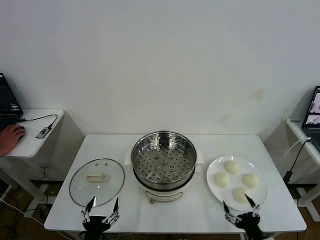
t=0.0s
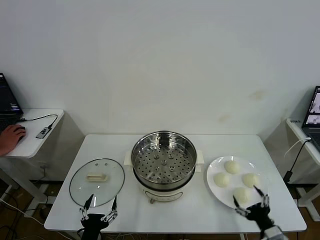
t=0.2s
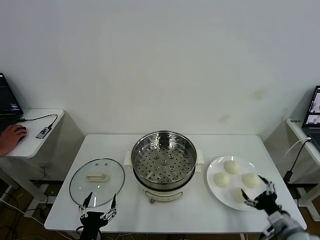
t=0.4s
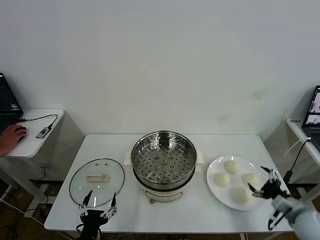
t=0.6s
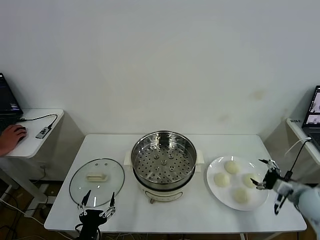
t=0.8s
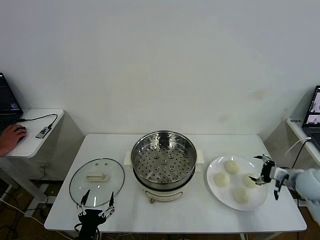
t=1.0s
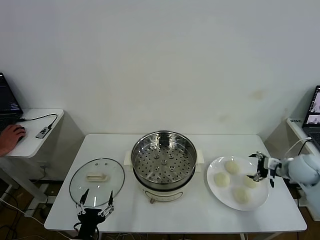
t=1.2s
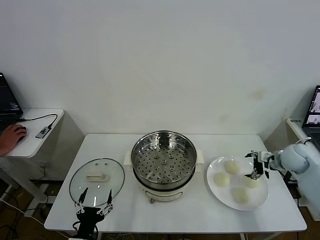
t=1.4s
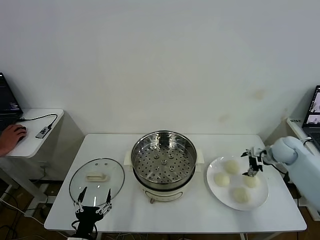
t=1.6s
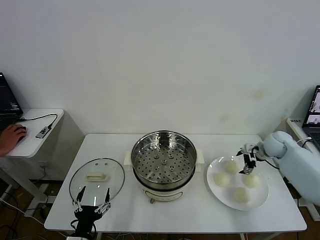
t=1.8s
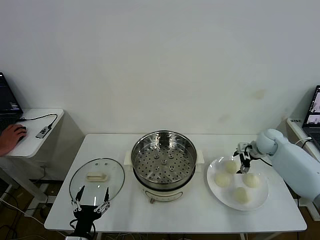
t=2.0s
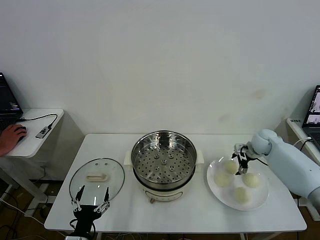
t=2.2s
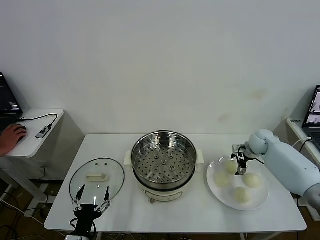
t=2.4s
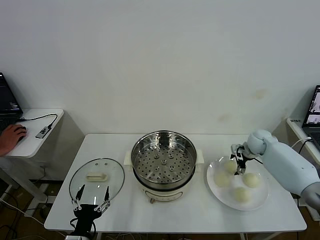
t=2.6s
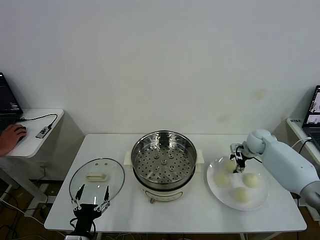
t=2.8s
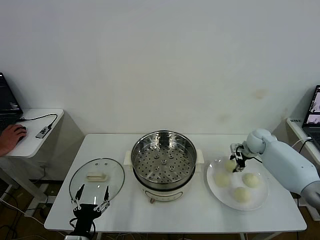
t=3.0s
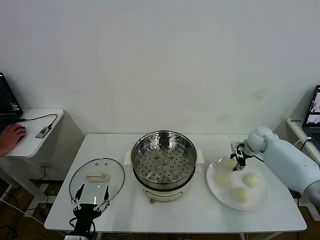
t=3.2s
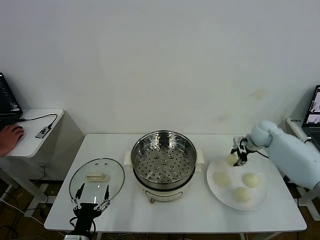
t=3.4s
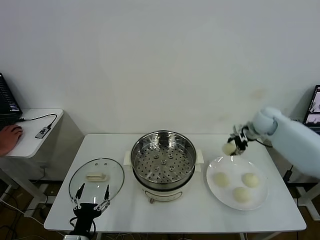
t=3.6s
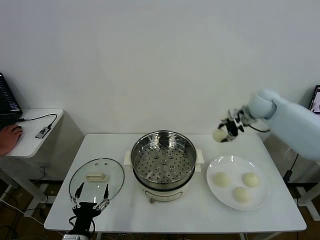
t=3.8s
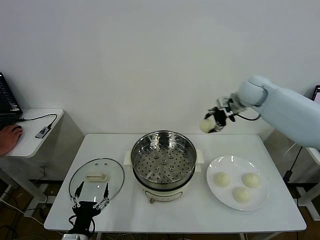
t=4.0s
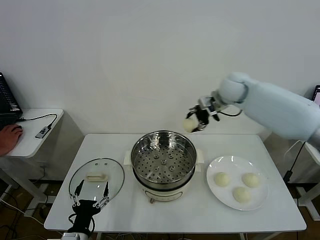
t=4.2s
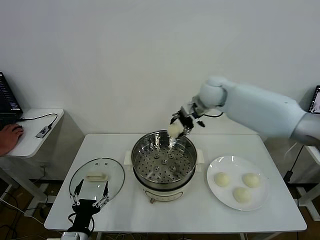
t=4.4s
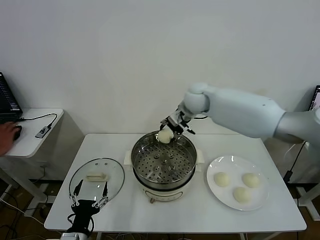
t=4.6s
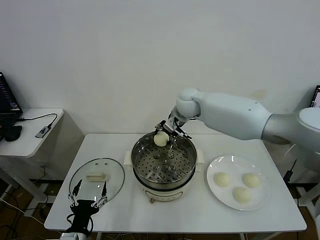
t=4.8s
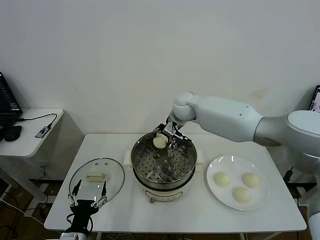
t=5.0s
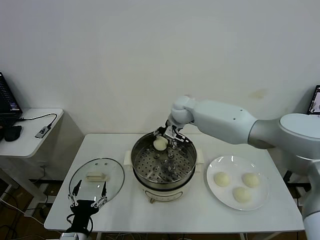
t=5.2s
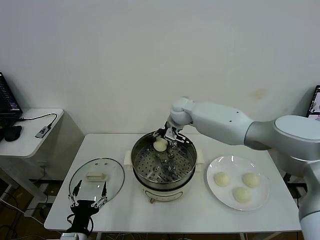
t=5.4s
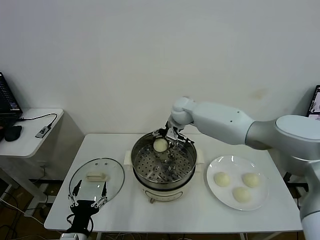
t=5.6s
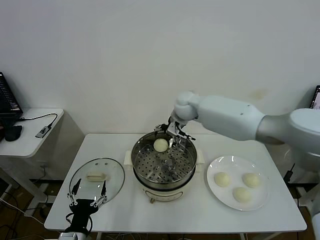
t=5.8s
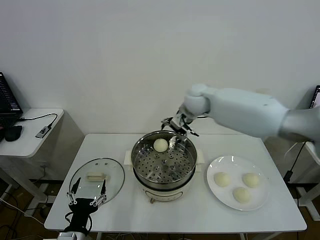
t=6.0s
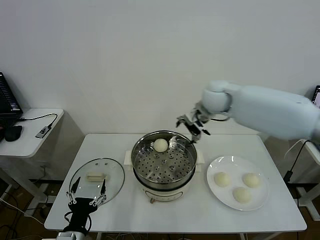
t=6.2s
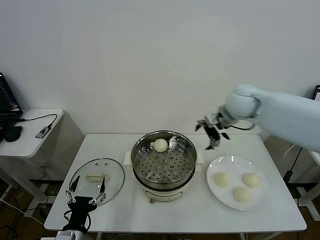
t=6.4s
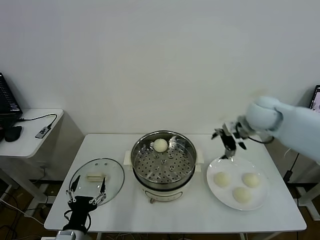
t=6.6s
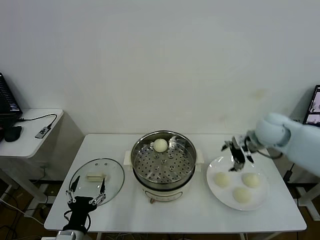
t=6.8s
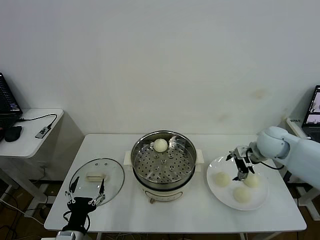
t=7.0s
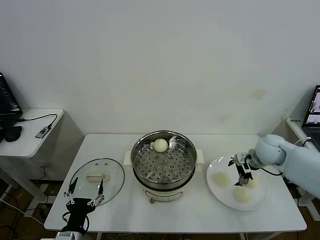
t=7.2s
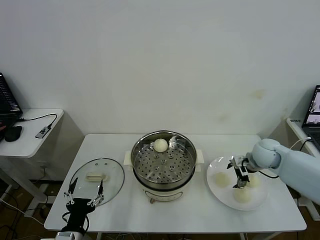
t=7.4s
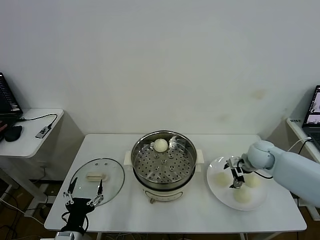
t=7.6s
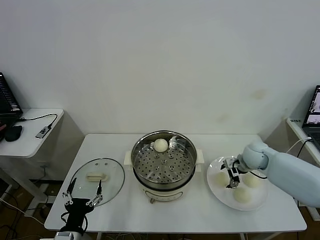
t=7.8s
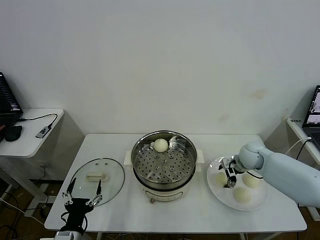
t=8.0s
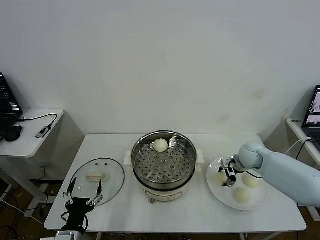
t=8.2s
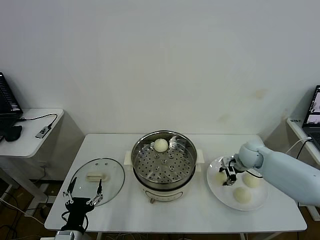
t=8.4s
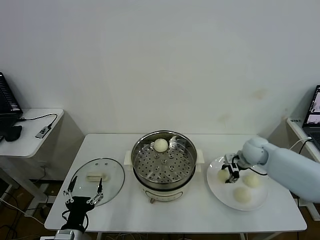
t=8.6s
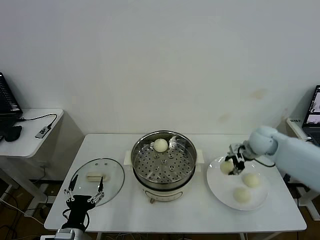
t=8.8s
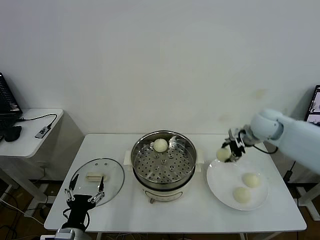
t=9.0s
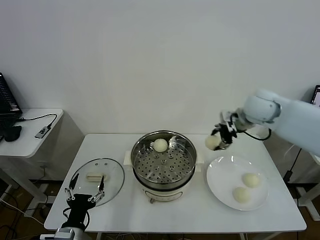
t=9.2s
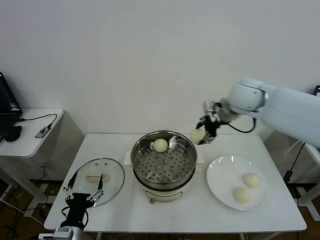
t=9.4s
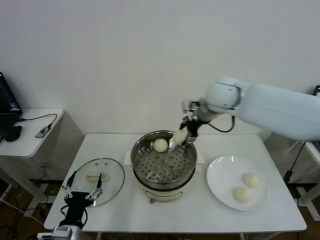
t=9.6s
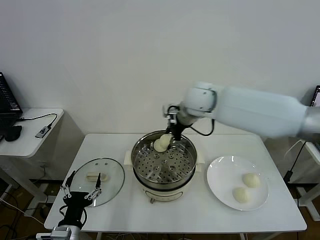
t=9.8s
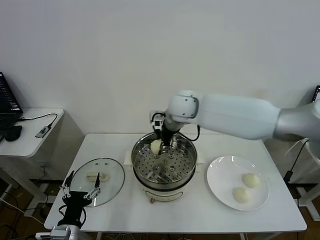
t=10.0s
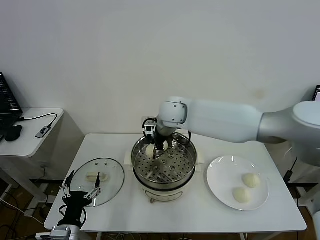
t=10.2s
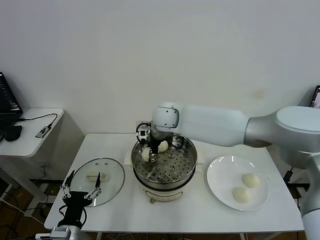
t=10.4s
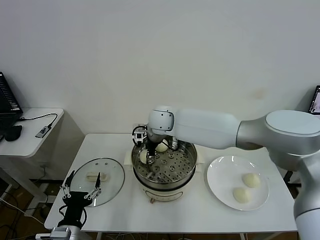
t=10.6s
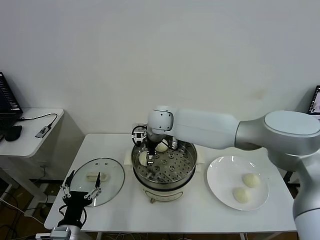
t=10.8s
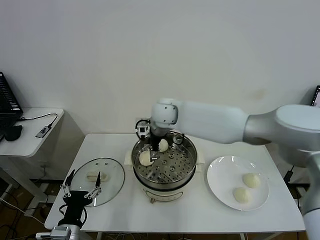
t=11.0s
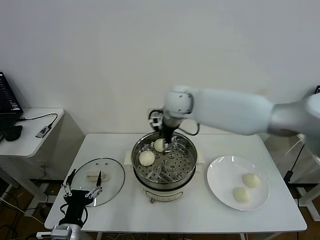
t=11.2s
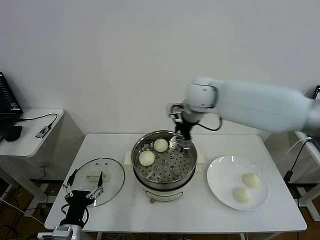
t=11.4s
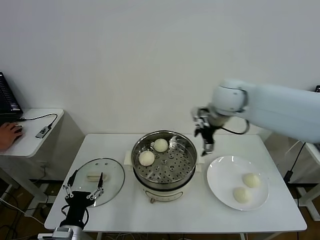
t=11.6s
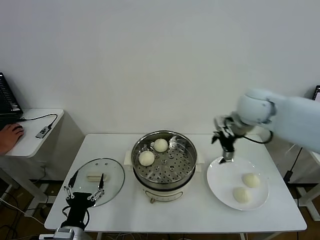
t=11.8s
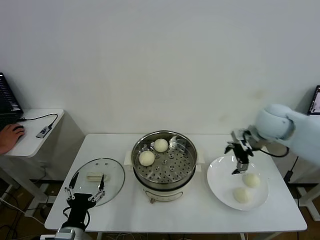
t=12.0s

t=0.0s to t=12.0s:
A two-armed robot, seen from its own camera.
Task of the whole recording: take steamed baozi put them in steamer then cover it.
Step, t=0.0s to t=3.0s: Grasp the baozi in the plate with right gripper.
Step, t=3.2s to t=5.6s: Place the baozi on the steamer with right gripper.
Step, t=5.8s to t=8.2s: Grasp the baozi in the plate with right gripper.
Step, t=8.6s to t=10.8s: Place the baozi on the steamer with right gripper.
t=1.6s to t=3.0s: The right gripper ends up roughly 5 cm from where it was, and closes up.
t=3.0s to t=4.4s: The right gripper travels to the left and upward by about 30 cm.
t=4.4s to t=6.0s: The right gripper moves some 10 cm downward and comes back, and opens up.
t=6.0s to t=7.6s: The right gripper heads to the right and downward, covering some 30 cm.
t=7.6s to t=9.0s: The right gripper is displaced upward by roughly 15 cm, and closes.
t=9.0s to t=10.4s: The right gripper shifts about 30 cm to the left.
t=10.4s to t=12.0s: The right gripper moves to the right, approximately 35 cm, and opens.

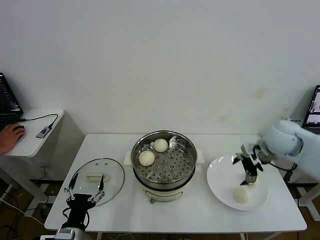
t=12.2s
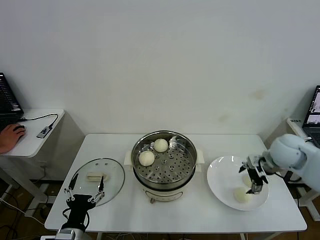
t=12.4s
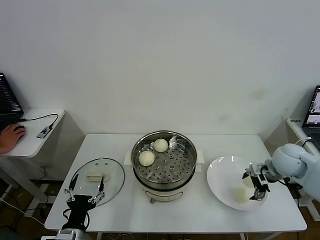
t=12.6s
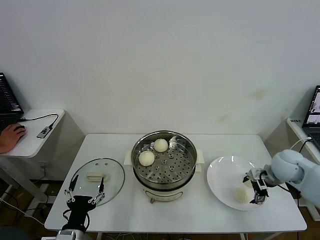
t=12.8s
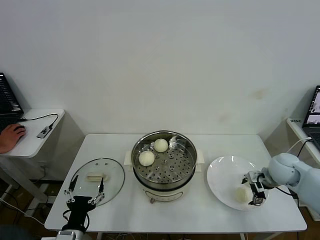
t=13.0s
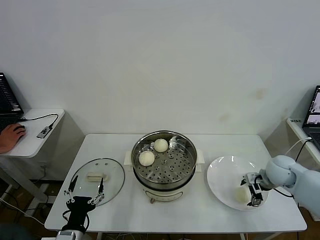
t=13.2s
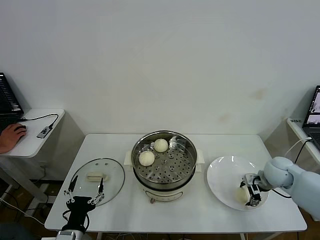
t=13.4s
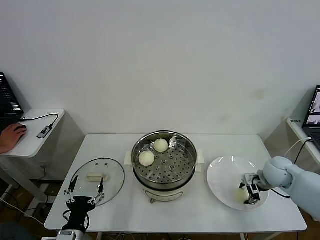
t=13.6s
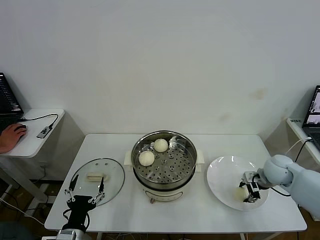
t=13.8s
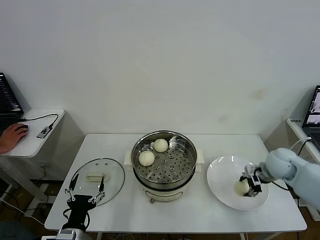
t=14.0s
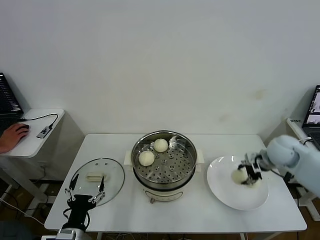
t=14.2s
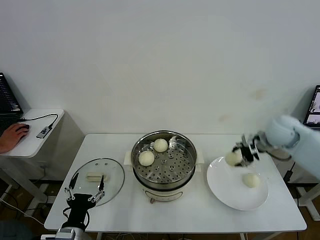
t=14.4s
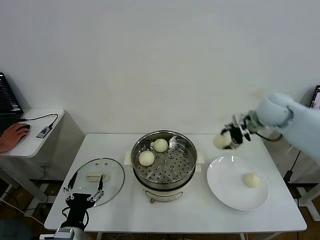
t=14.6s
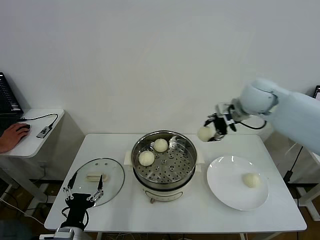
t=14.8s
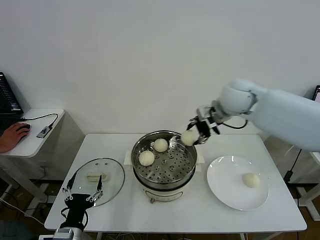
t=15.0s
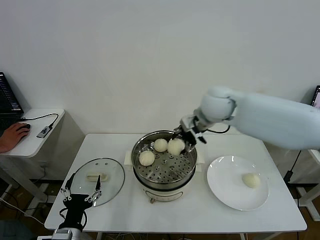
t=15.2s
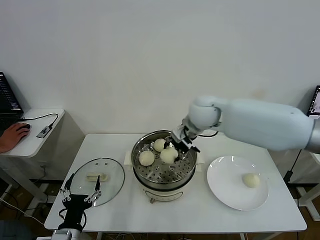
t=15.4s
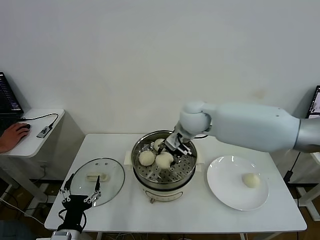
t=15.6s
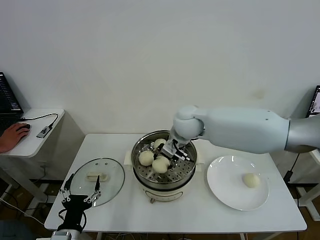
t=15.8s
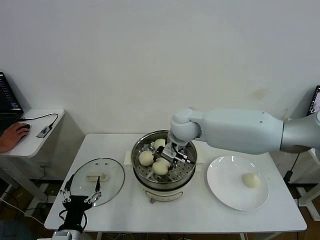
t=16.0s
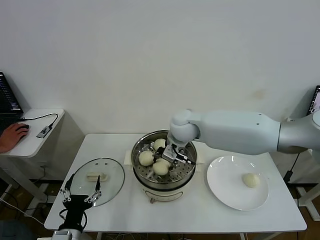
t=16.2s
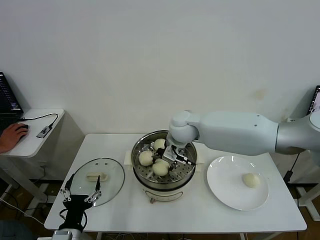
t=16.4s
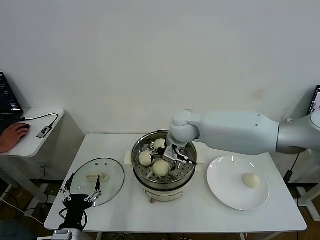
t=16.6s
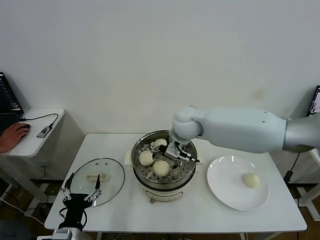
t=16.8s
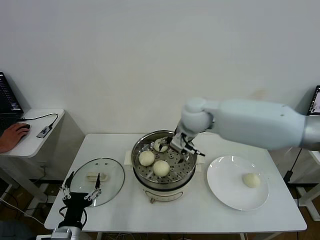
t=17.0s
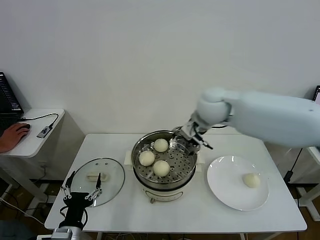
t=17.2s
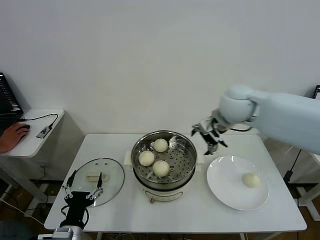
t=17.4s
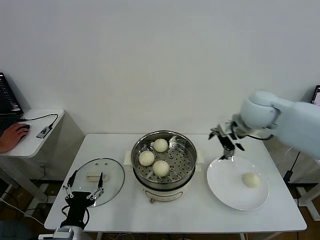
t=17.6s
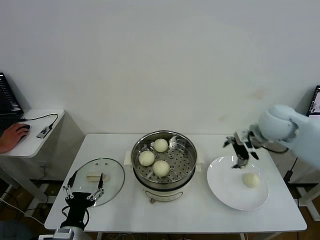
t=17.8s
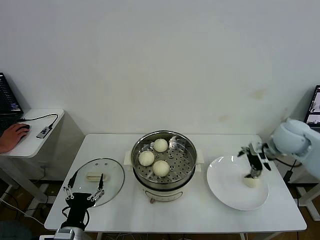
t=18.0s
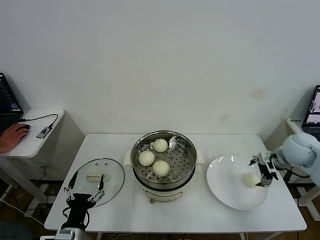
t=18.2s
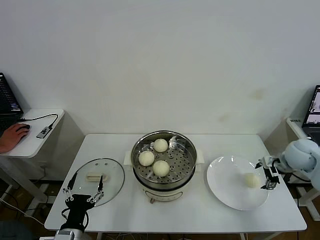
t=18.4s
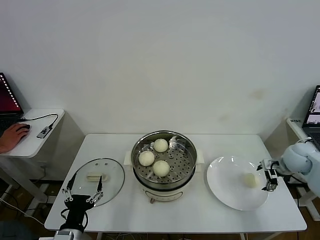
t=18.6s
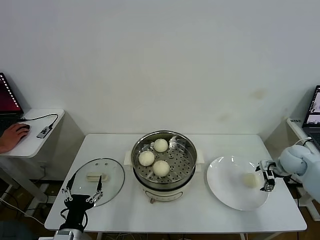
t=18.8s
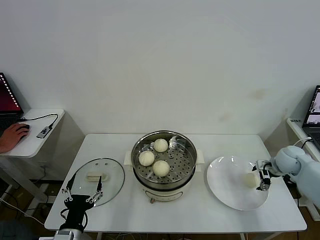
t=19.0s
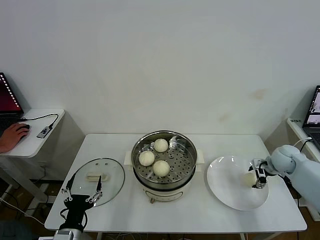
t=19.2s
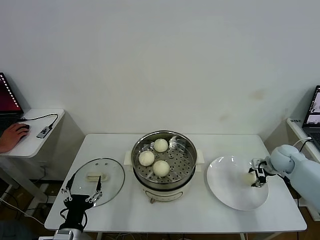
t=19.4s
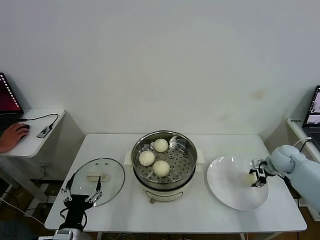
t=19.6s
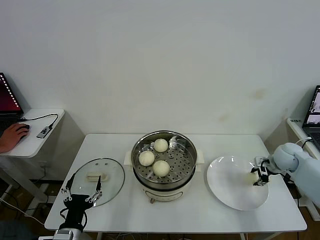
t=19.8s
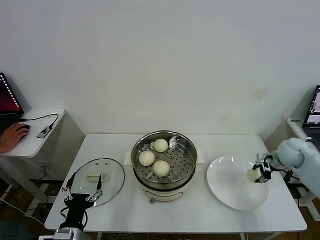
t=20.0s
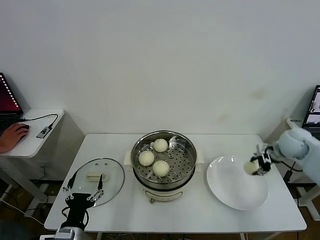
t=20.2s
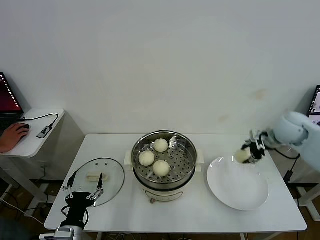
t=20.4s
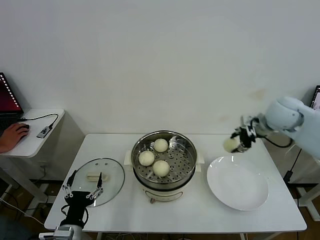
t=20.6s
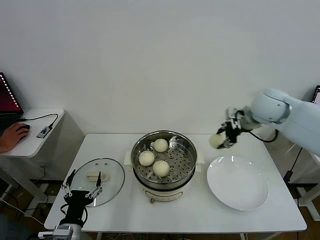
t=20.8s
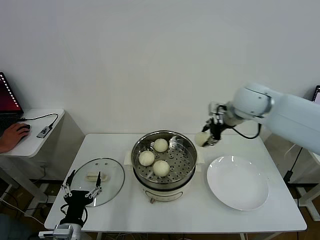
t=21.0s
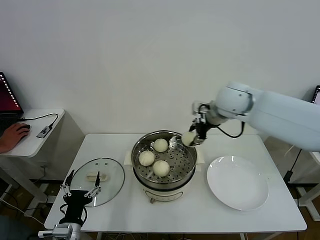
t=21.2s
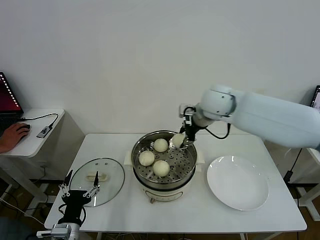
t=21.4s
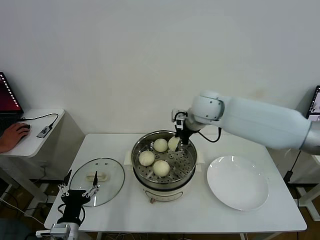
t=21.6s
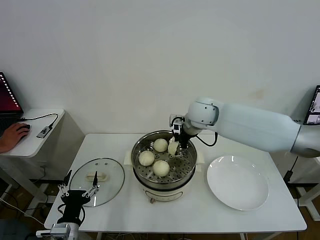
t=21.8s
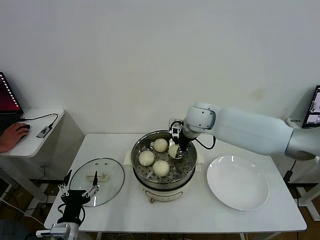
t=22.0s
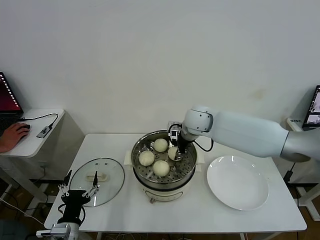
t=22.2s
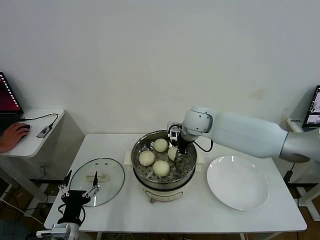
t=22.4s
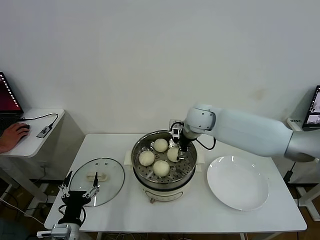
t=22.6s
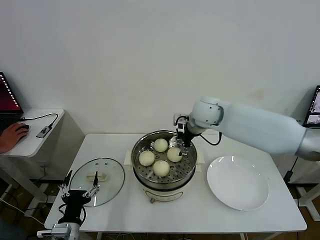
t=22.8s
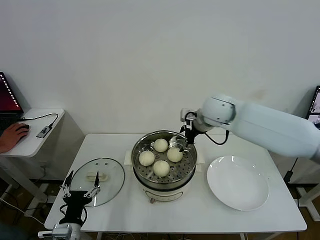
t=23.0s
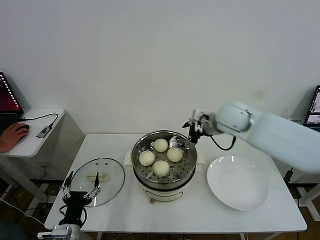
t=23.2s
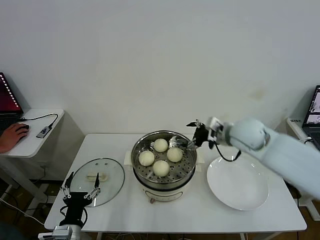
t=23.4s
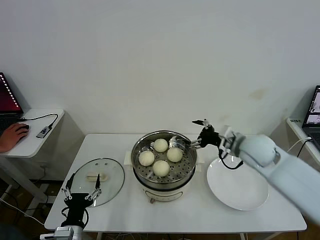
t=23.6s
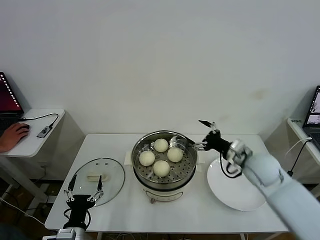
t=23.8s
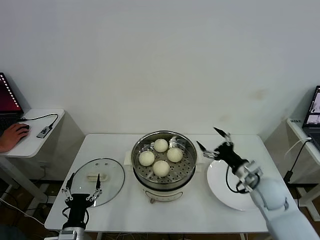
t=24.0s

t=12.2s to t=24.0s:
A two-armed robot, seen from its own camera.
Task of the whole recording: take steamed baozi put them in steamer then cover it.
Step, t=12.2s to t=13.6s: Grasp the baozi in the plate with right gripper.
Step, t=13.8s to t=16.8s: Place the baozi on the steamer with right gripper.
Step, t=17.0s to t=19.6s: Grasp the baozi in the plate with right gripper.
Step, t=19.8s to t=22.6s: Place the baozi on the steamer with right gripper.
t=12.2s to t=13.6s: The right gripper moves downward, some 15 cm, and closes up.
t=13.6s to t=15.2s: The right gripper goes roughly 35 cm to the left and upward.
t=15.2s to t=16.6s: The right gripper goes roughly 10 cm to the left and downward, and opens its fingers.
t=16.6s to t=18.2s: The right gripper travels to the right by roughly 35 cm.
t=18.2s to t=19.6s: The right gripper goes roughly 10 cm downward, and closes up.
t=19.6s to t=21.0s: The right gripper goes some 30 cm upward and to the left.
t=21.0s to t=22.6s: The right gripper is displaced to the left and downward by about 15 cm, and opens up.
t=22.6s to t=24.0s: The right gripper is displaced to the right, backward and downward by roughly 30 cm.
